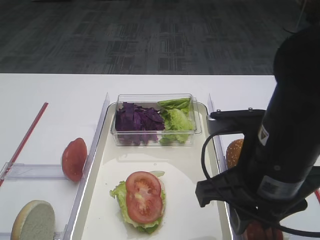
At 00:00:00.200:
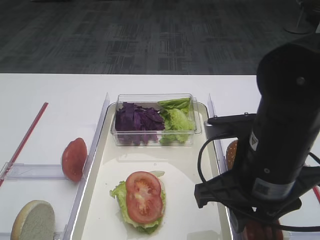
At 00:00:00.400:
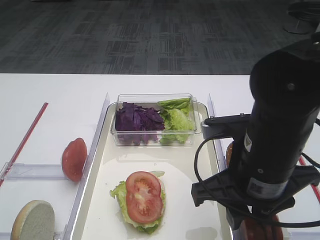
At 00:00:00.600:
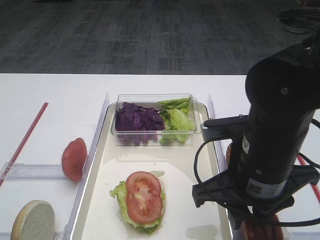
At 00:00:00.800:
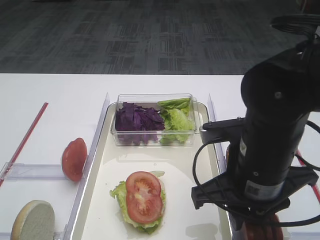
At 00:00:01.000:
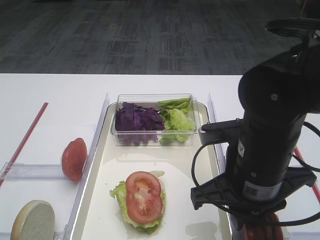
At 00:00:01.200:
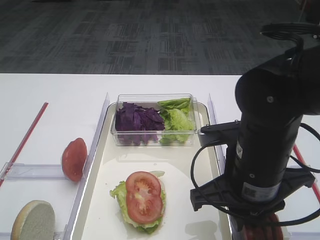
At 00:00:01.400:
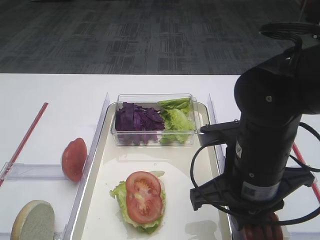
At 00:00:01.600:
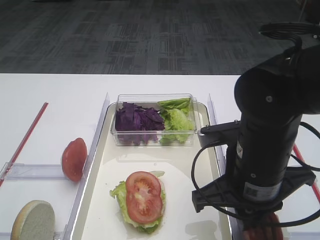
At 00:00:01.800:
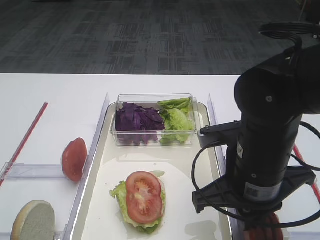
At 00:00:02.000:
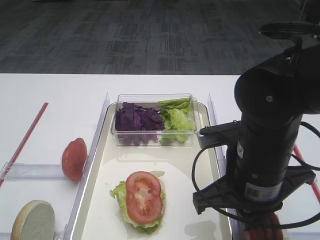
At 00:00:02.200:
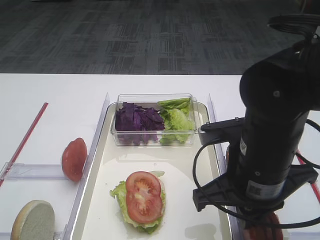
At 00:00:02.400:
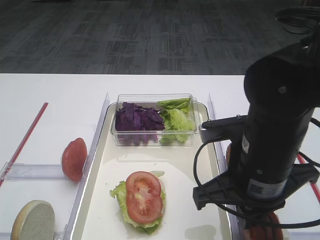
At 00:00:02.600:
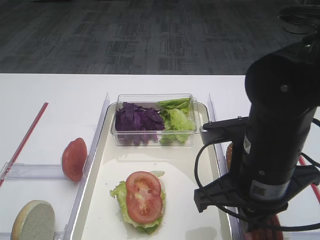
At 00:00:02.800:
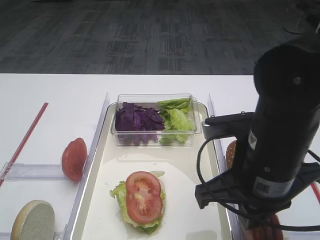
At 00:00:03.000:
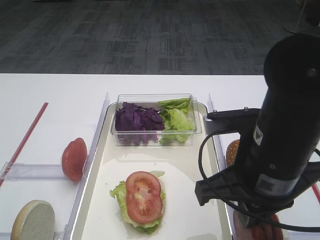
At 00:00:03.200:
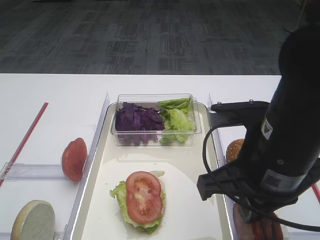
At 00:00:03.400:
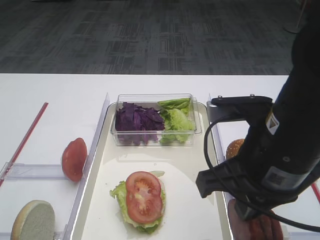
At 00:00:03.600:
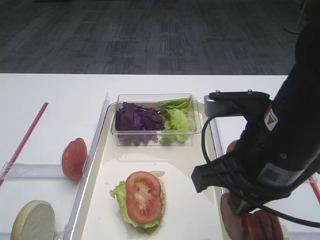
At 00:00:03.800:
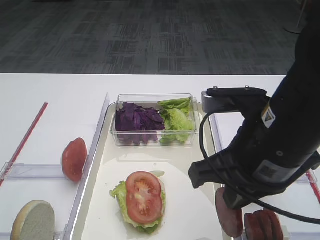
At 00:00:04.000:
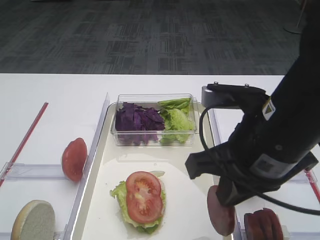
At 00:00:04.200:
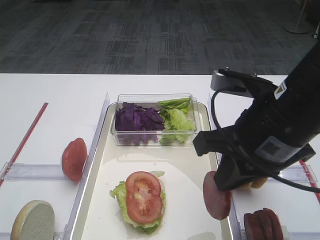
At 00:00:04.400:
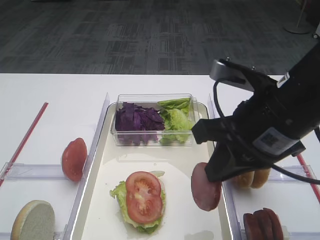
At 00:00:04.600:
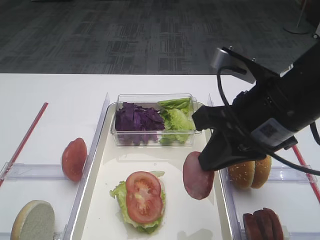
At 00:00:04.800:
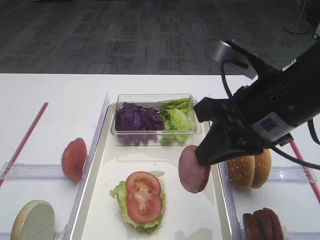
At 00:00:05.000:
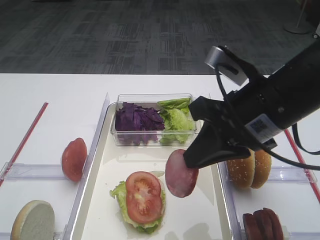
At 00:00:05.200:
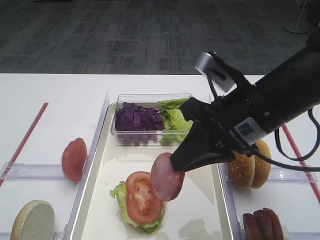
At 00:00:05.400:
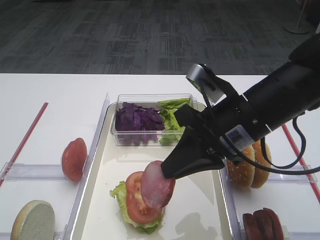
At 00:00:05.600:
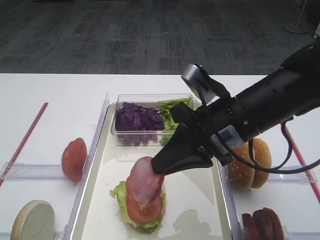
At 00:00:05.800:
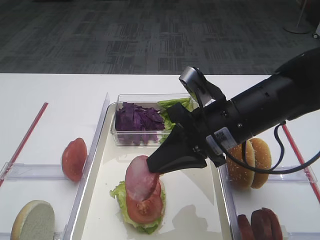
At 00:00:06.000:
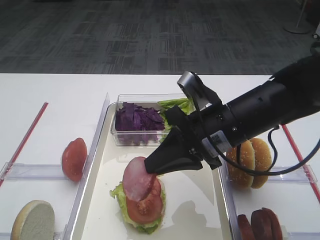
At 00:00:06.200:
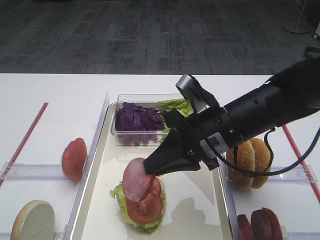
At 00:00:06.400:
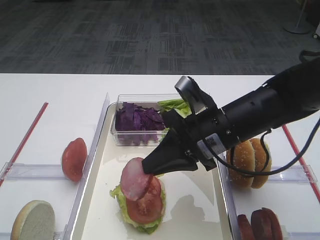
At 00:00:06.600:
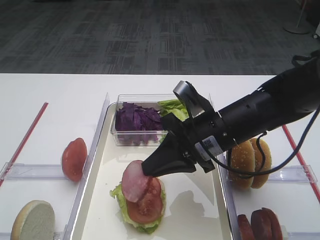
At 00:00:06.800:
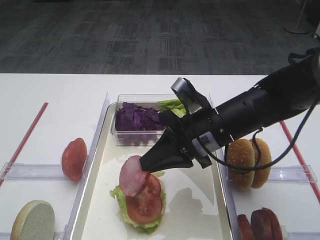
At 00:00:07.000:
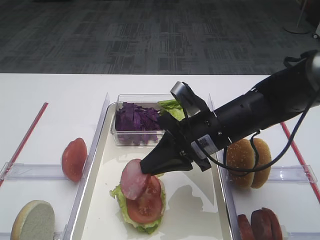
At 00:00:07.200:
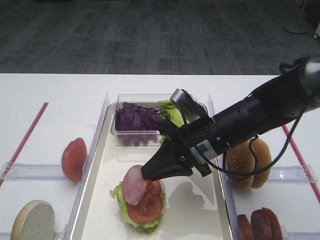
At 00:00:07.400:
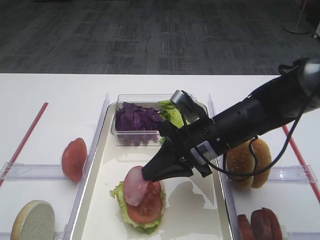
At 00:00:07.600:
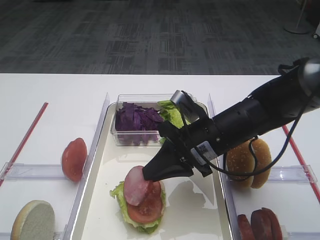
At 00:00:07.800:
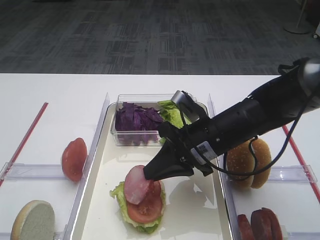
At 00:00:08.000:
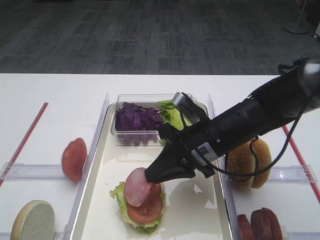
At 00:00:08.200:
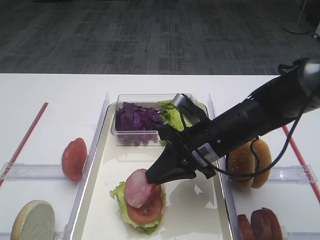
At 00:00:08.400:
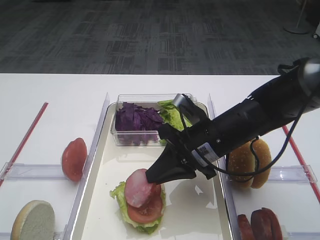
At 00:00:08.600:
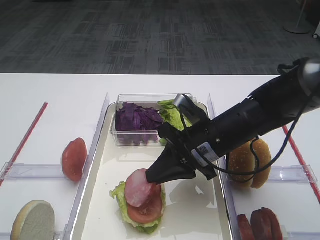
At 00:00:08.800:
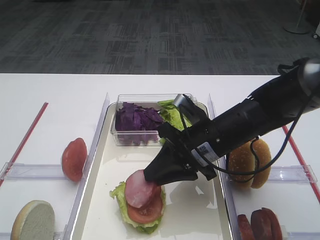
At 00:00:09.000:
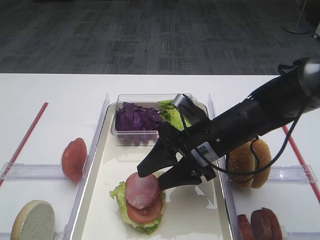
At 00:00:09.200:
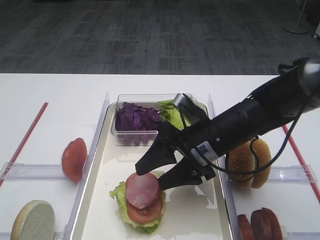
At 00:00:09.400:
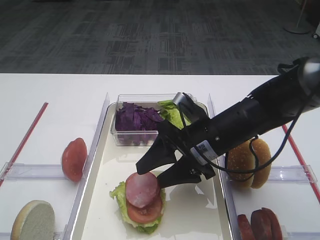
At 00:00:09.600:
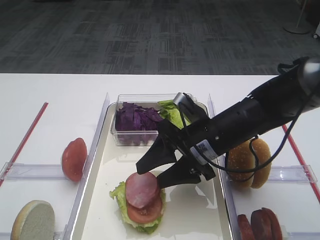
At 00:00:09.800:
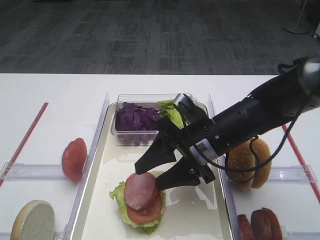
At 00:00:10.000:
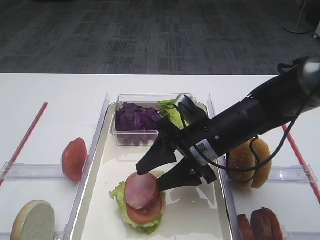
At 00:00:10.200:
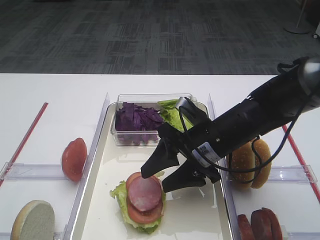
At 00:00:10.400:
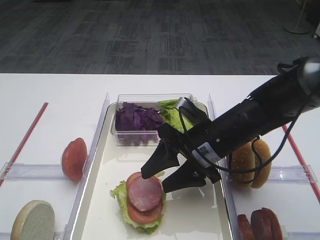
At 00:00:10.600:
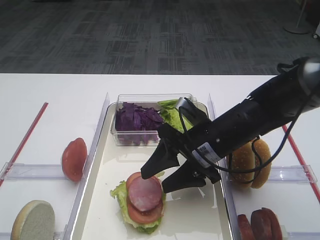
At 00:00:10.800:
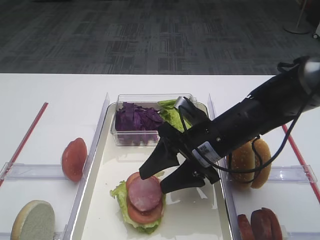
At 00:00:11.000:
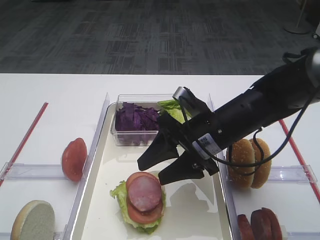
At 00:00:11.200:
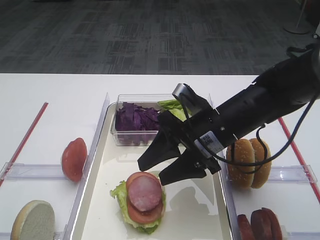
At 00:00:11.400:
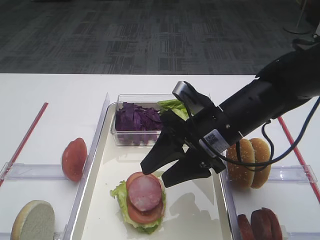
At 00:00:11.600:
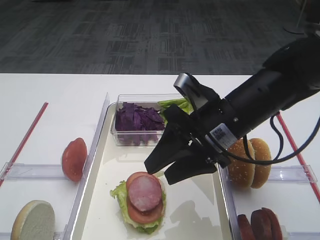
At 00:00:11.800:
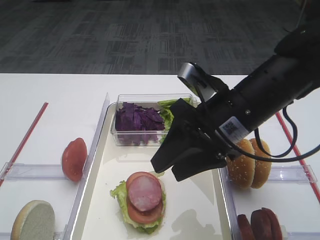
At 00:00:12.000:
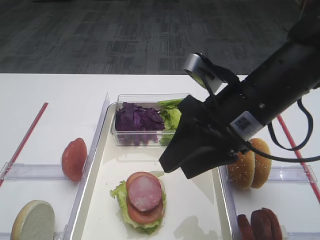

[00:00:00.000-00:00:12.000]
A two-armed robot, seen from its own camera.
Step, 00:00:00.000 to 00:00:03.200: Pick up the cutlet with the right gripper.
00:00:00.000 to 00:00:01.600: The right gripper closes.
00:00:01.600 to 00:00:03.000: The grippers move only a little.
00:00:04.400 to 00:00:06.000: The right gripper travels downward and forward by approximately 10 cm.
00:00:06.000 to 00:00:07.600: The right gripper changes place by approximately 5 cm.
00:00:07.600 to 00:00:09.000: The right gripper opens its fingers.
00:00:09.000 to 00:00:10.400: The grippers stay close to where they were, moving slightly.
00:00:10.400 to 00:00:12.000: The right gripper goes roughly 10 cm upward.

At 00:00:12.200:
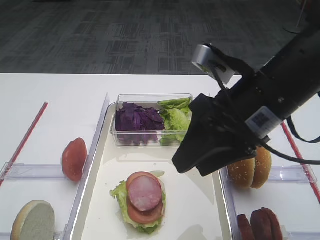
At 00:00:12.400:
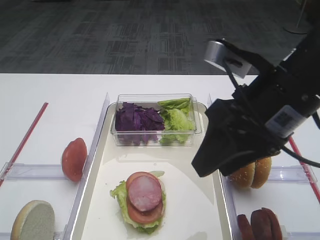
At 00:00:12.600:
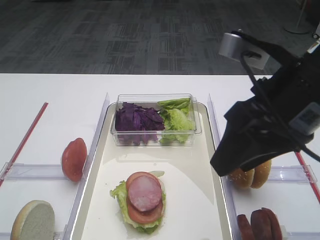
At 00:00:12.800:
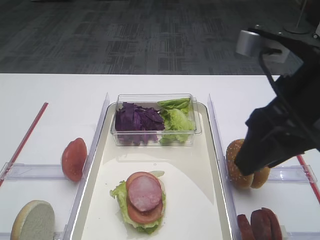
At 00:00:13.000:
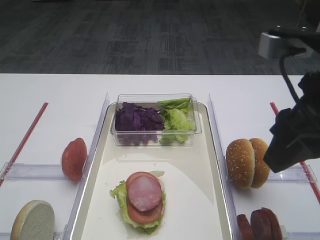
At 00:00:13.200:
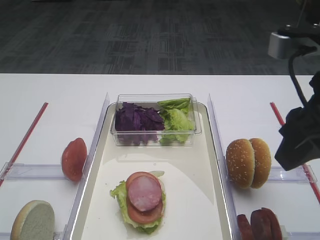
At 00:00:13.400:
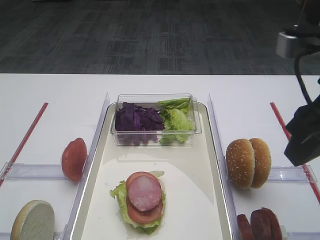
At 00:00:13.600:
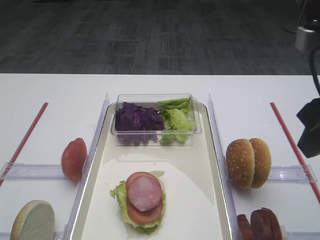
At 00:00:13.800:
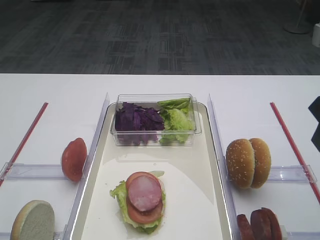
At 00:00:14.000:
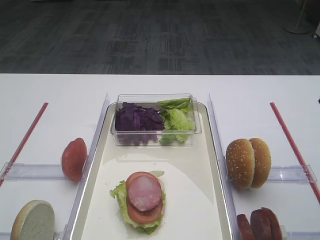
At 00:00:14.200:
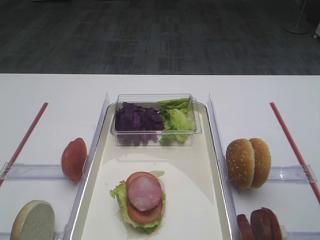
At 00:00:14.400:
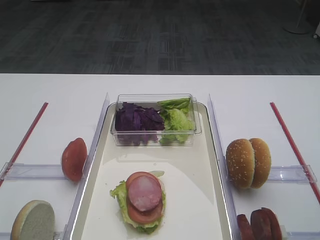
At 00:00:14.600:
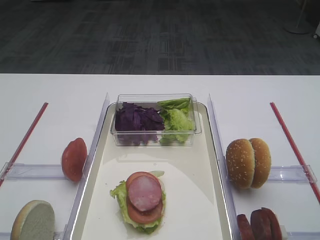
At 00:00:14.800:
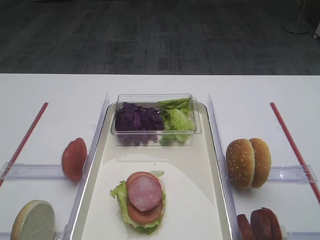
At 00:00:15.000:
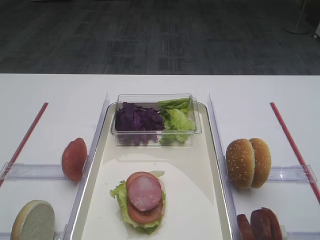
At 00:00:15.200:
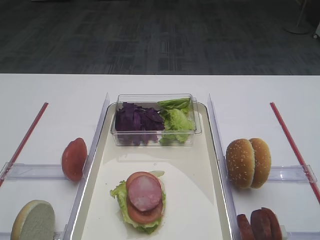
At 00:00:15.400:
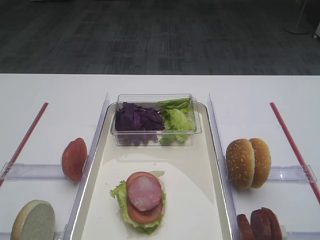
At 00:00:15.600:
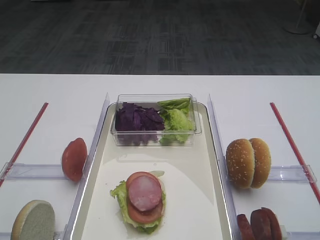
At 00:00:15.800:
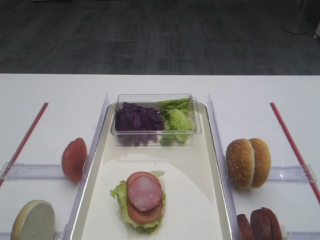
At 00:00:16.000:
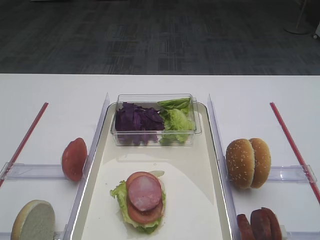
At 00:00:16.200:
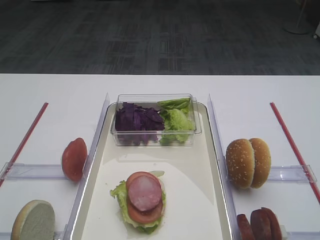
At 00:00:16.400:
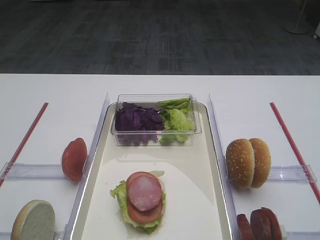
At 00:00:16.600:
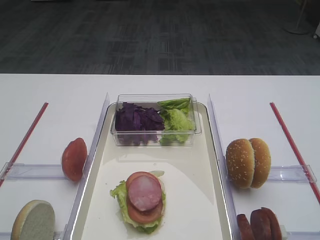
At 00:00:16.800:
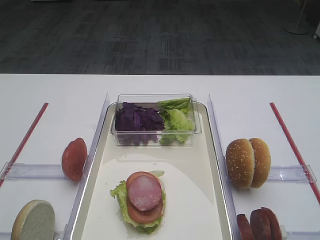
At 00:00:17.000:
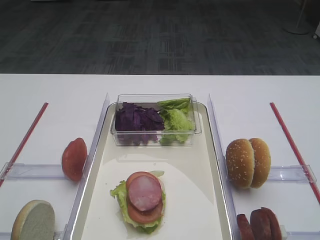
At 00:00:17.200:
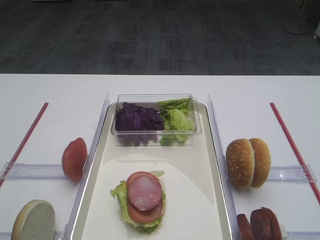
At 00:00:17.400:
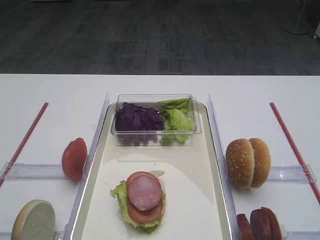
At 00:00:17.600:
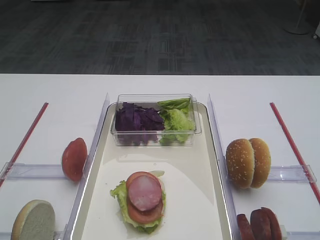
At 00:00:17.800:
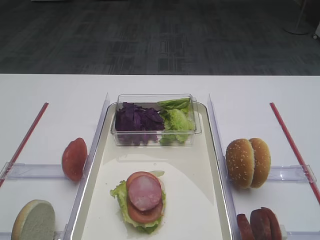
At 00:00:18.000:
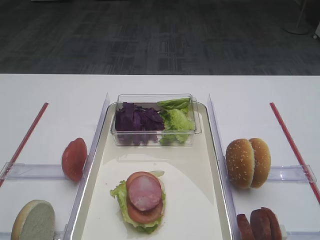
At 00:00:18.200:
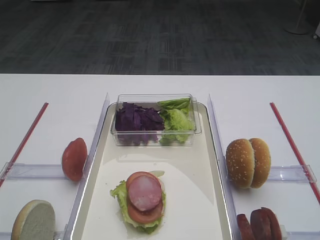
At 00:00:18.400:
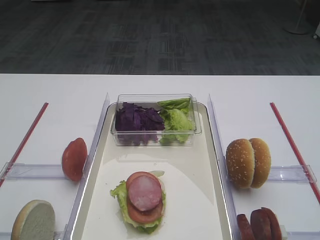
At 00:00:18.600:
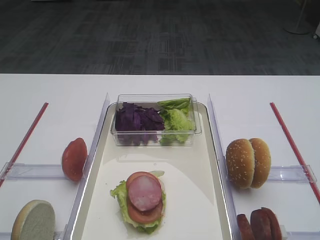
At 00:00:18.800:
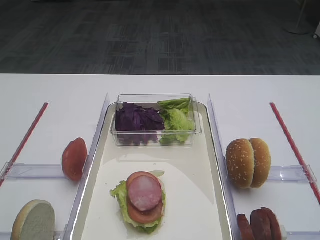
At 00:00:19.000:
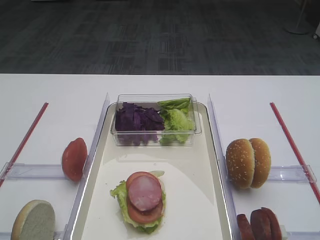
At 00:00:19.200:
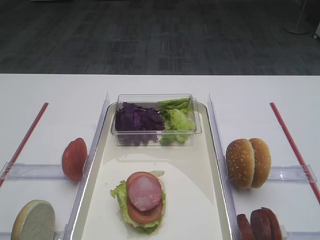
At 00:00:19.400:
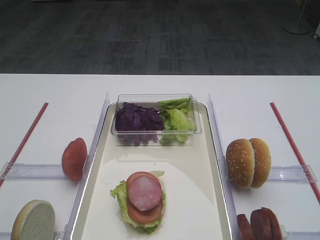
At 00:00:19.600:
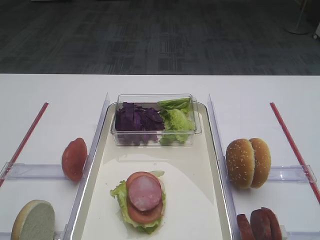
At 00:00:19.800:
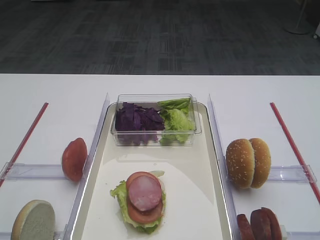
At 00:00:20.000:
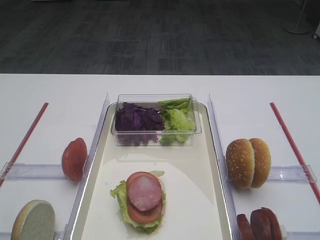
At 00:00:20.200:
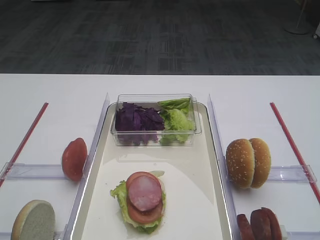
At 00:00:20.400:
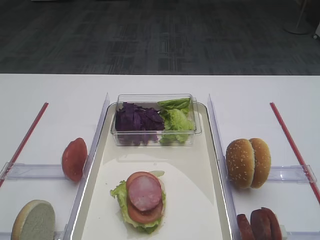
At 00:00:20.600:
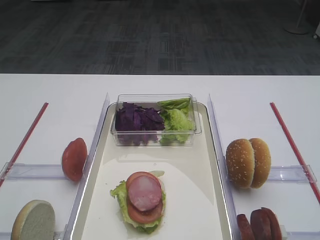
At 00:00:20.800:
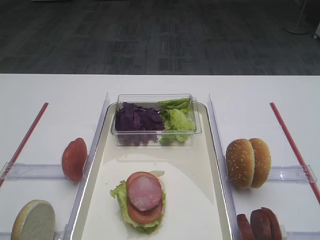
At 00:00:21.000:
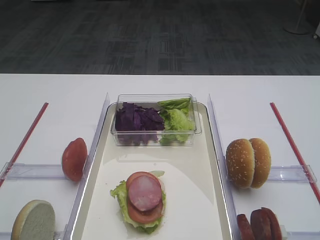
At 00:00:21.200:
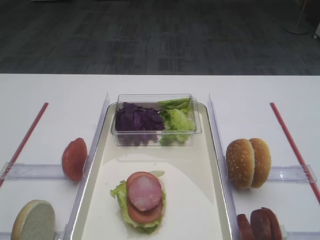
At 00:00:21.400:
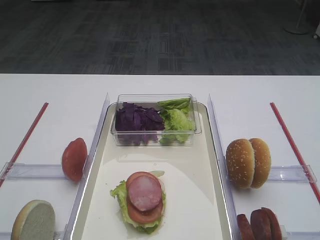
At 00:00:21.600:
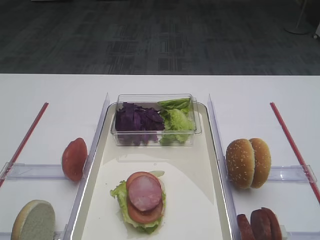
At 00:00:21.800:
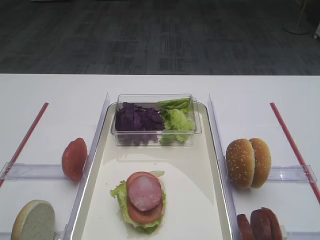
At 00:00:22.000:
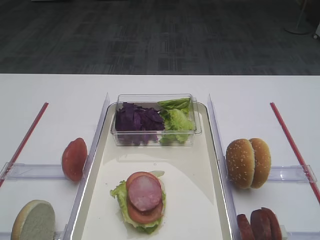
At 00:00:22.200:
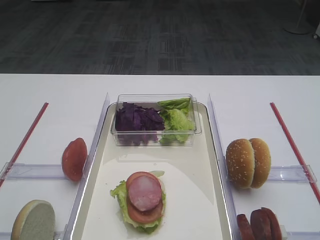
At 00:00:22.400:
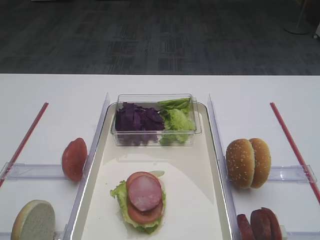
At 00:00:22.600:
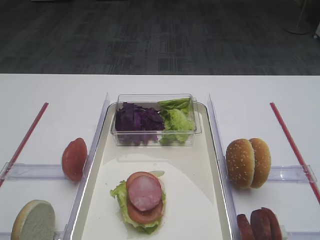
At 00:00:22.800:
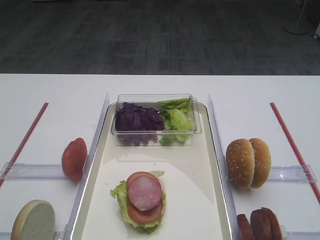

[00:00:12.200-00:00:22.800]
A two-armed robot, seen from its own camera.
00:00:12.200 to 00:00:13.800: The right gripper moves to the right, about 10 cm.
00:00:18.200 to 00:00:22.800: Both grippers stay put.
